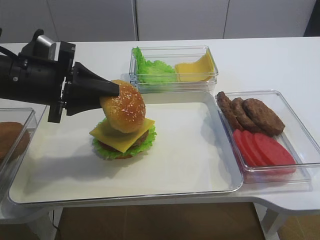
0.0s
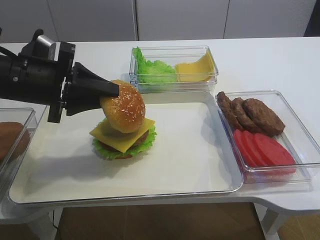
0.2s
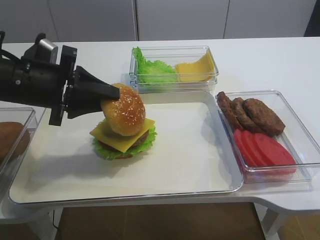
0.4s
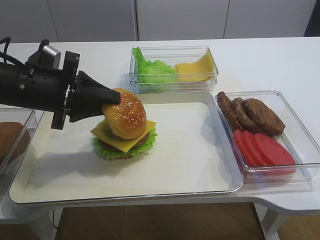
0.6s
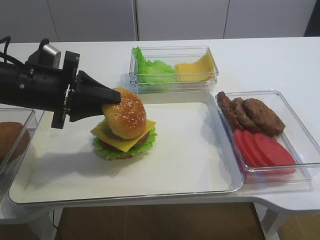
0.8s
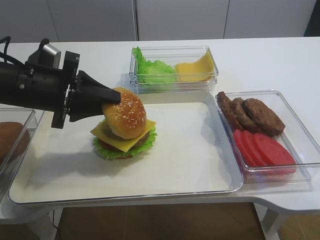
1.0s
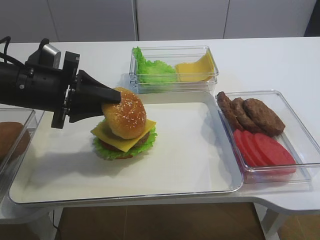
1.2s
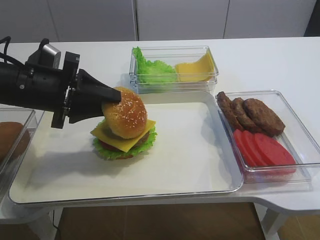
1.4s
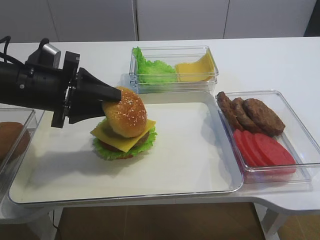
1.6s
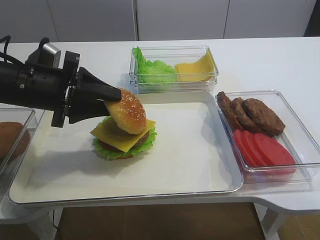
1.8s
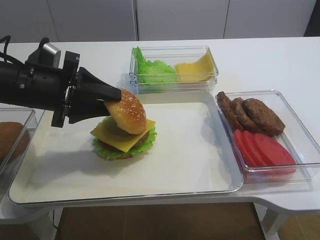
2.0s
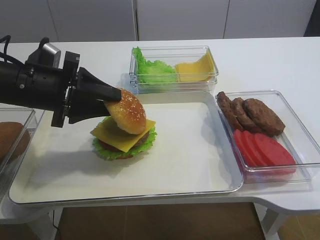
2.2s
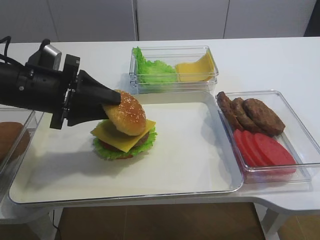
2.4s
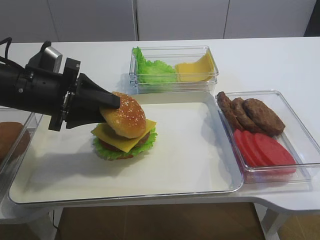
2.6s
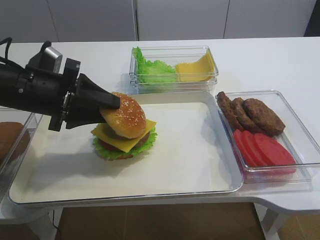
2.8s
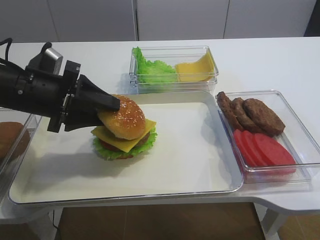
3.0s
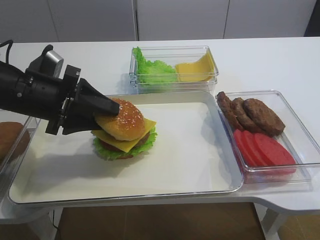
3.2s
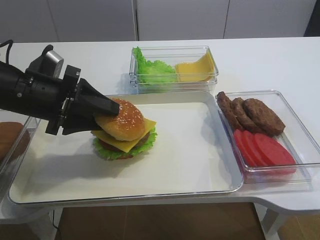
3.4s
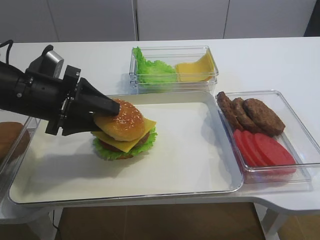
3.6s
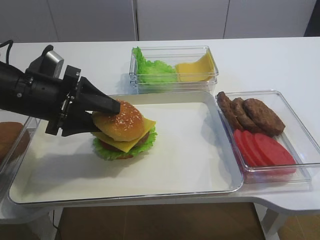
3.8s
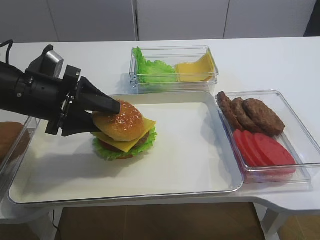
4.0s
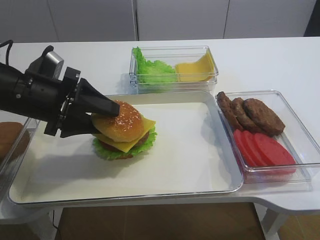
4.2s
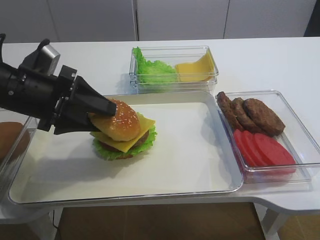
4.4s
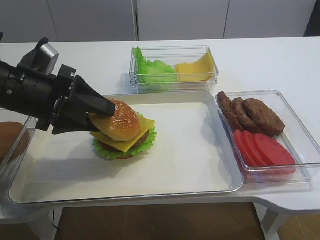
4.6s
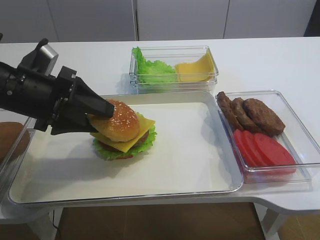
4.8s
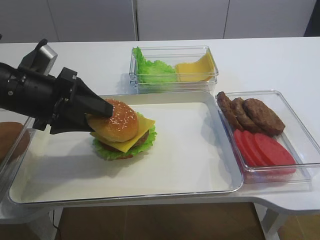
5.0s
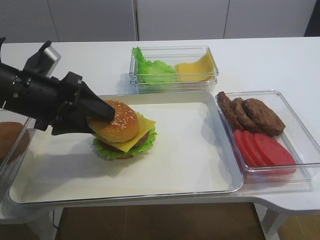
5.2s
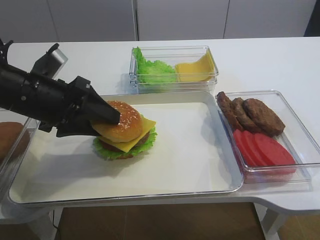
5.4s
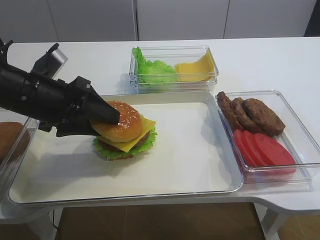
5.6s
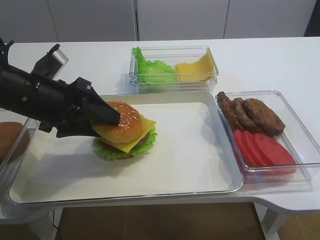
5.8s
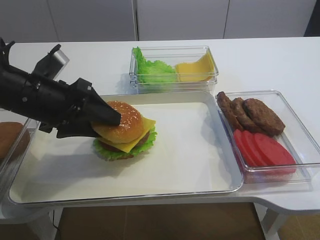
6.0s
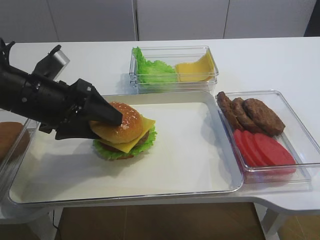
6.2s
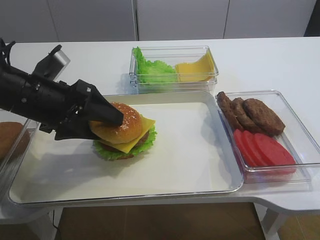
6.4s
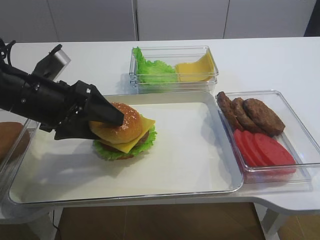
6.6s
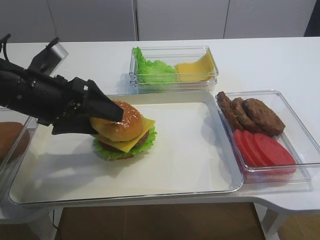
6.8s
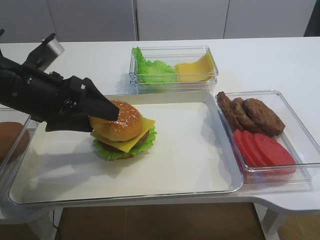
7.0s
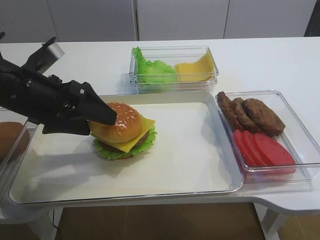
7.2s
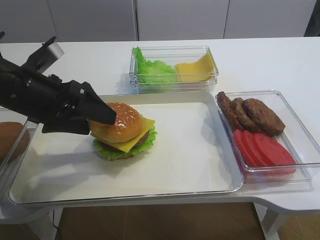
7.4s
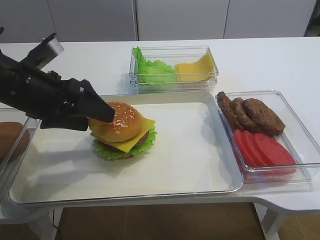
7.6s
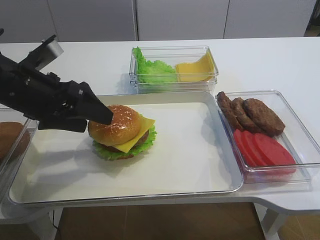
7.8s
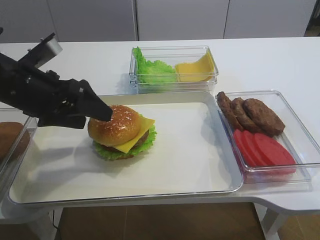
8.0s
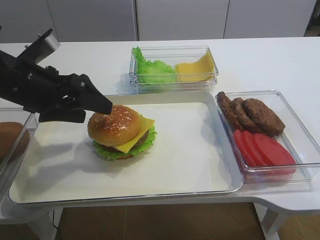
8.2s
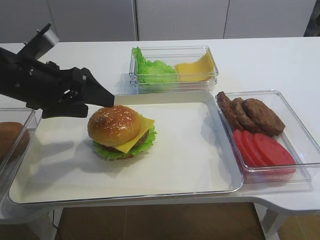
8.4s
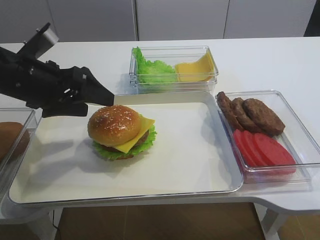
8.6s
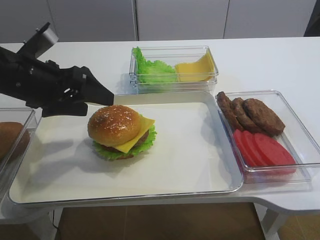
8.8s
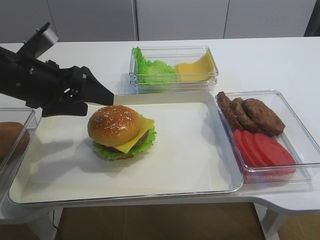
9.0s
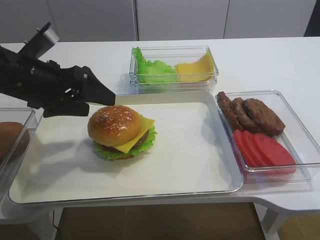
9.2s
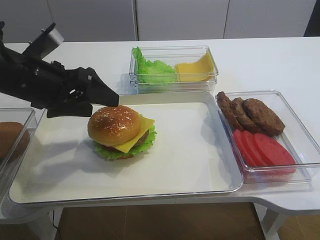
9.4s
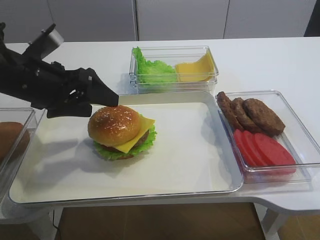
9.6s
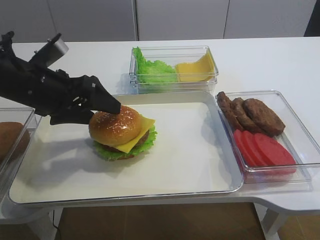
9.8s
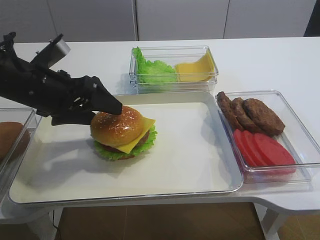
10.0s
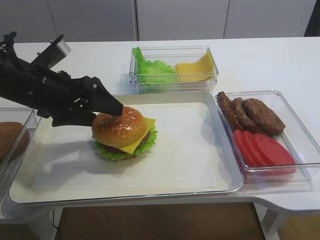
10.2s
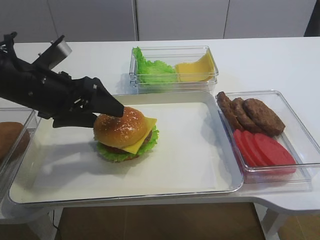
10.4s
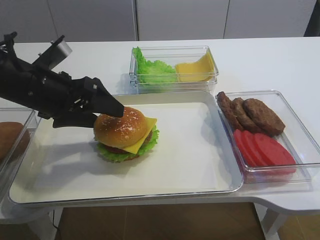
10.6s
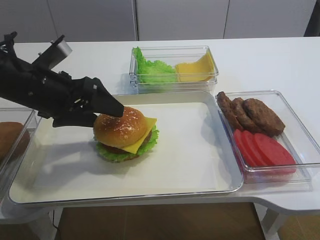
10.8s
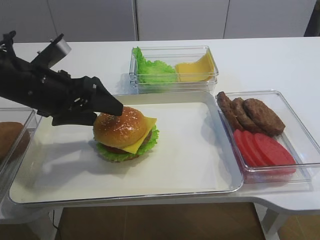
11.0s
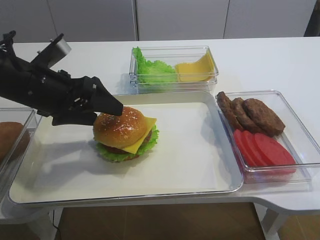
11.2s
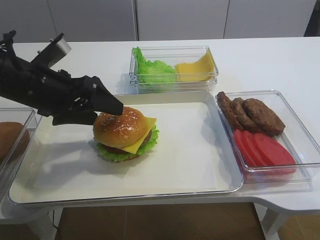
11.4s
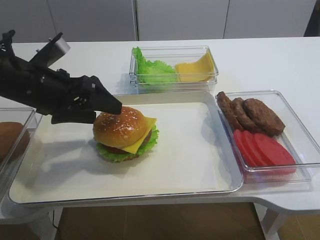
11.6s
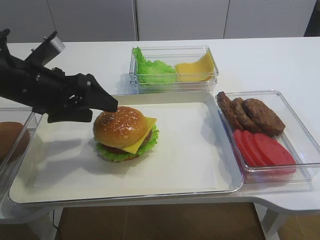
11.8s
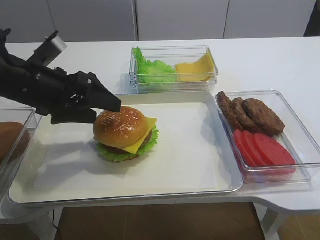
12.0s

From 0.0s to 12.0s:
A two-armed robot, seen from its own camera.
From 0.0s to 1.6s: The grippers move only a little.
From 1.6s to 3.0s: Neither gripper changes place.
From 3.0s to 6.0s: The grippers stay close to where they were, moving slightly.
From 6.0s to 7.6s: The left gripper opens its fingers.
From 7.6s to 10.4s: The grippers move only a little.
From 10.4s to 12.0s: Neither gripper changes place.

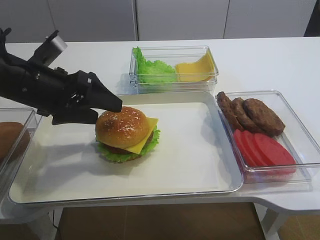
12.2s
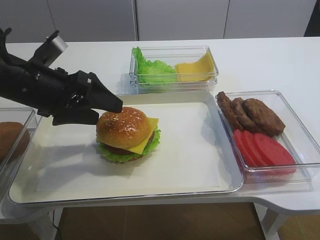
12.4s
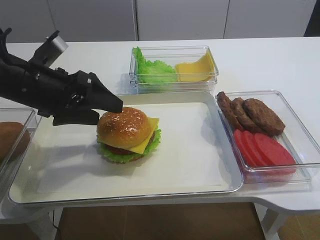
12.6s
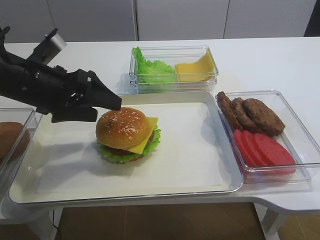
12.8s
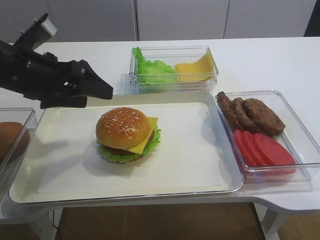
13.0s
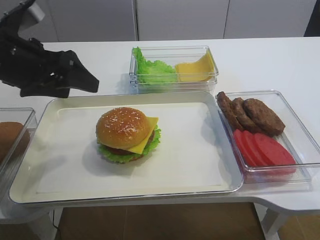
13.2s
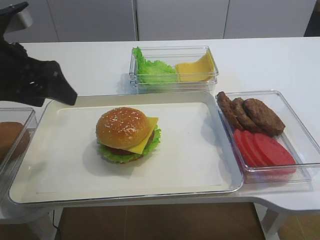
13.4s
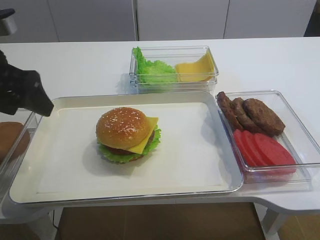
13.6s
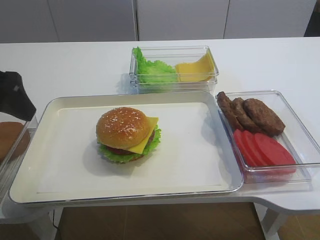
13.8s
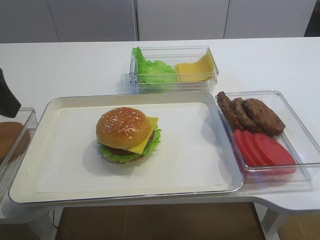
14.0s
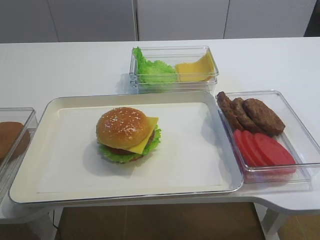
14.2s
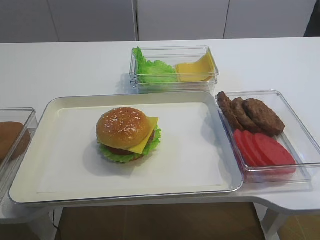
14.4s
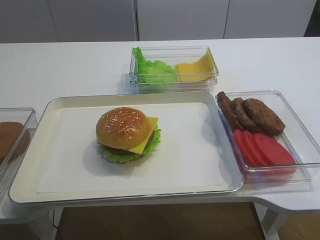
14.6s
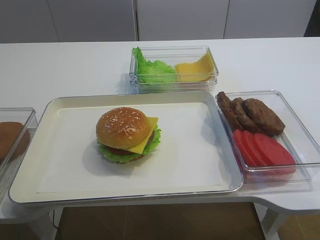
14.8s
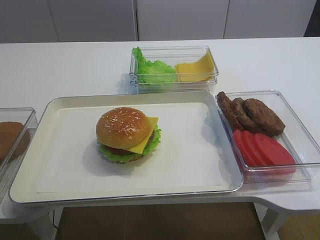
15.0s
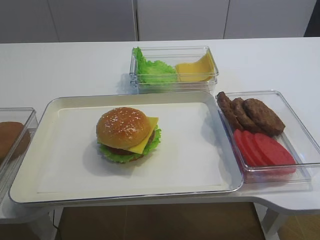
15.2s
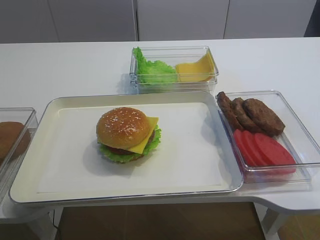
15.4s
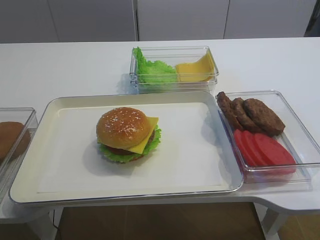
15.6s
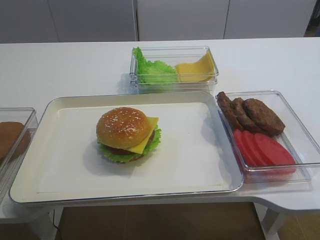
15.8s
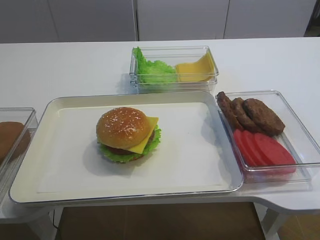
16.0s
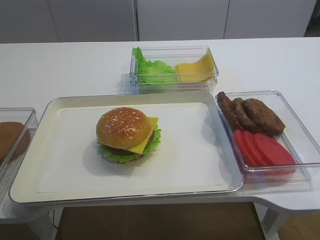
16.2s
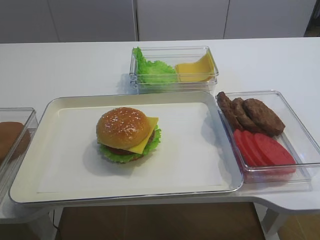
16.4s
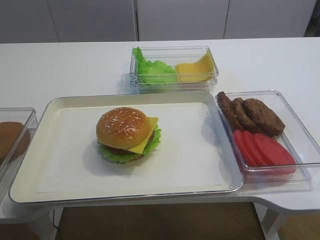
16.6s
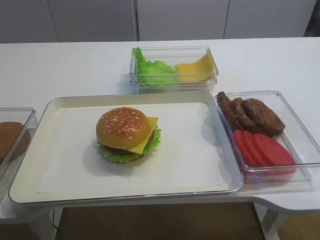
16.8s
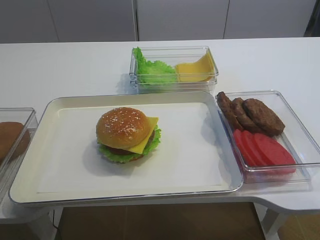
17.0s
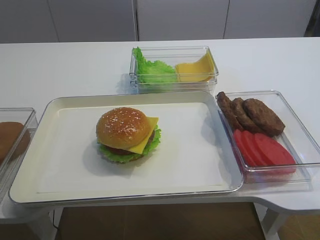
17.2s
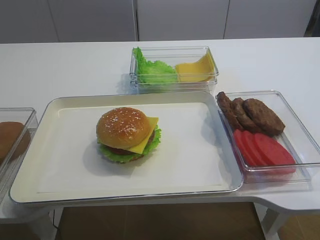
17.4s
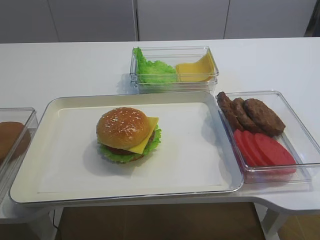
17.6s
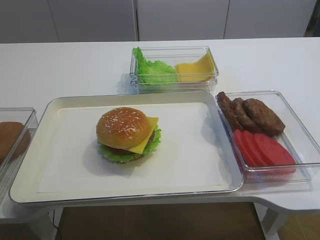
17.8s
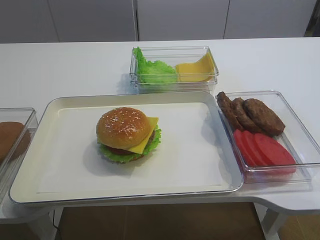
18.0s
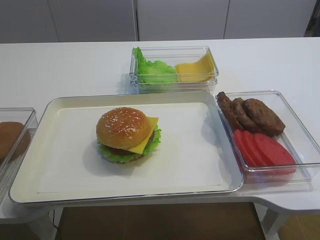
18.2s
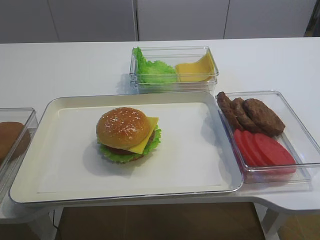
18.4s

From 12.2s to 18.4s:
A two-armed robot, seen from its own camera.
From 12.2s to 13.8s: The left gripper shifts about 10 cm upward, to the left and backward.
From 13.8s to 15.4s: The left gripper goes approximately 25 cm backward.

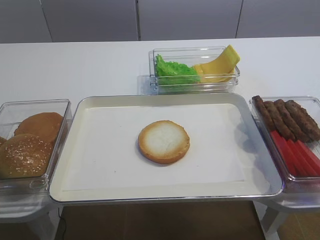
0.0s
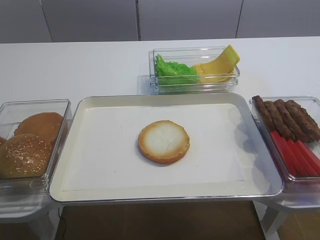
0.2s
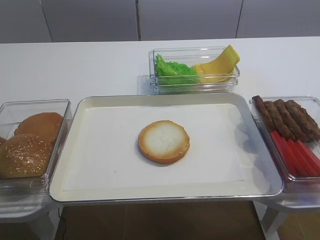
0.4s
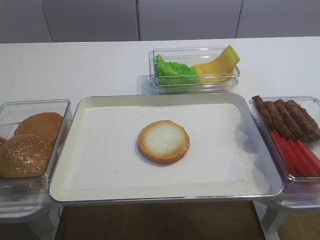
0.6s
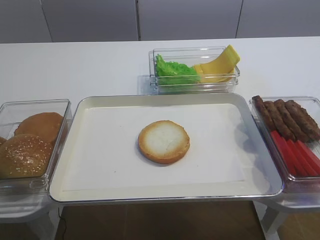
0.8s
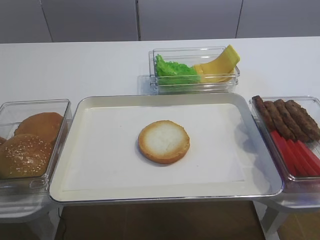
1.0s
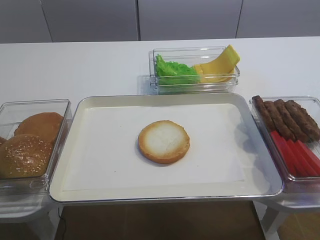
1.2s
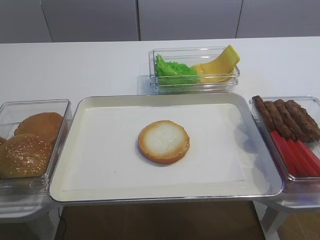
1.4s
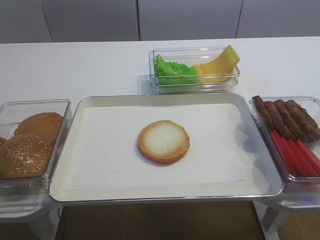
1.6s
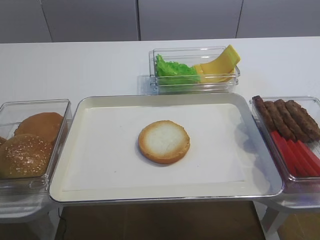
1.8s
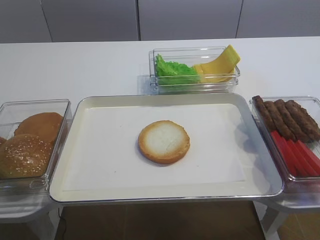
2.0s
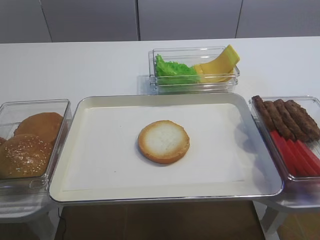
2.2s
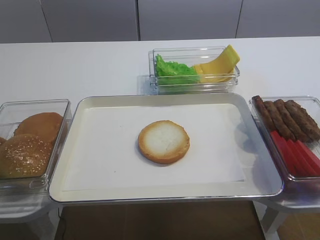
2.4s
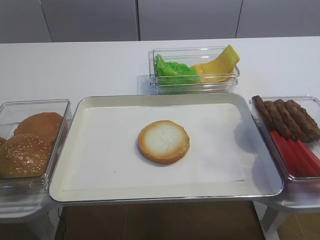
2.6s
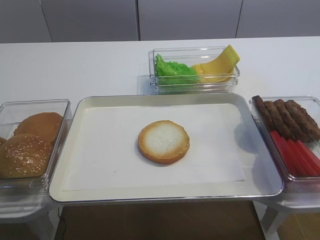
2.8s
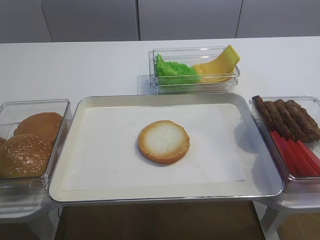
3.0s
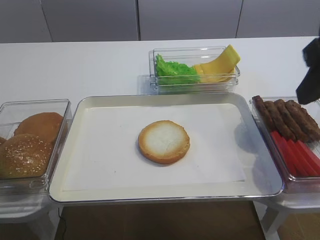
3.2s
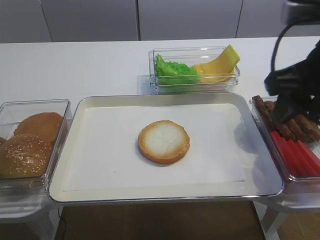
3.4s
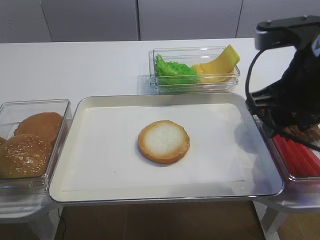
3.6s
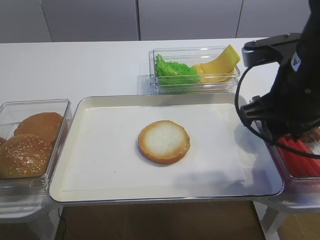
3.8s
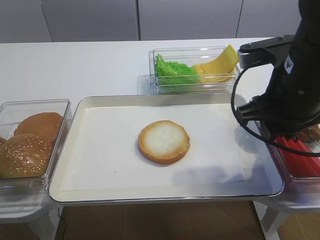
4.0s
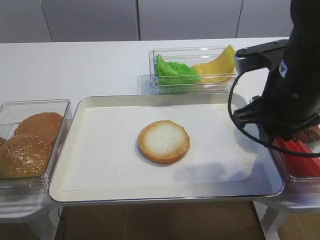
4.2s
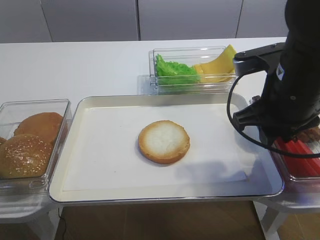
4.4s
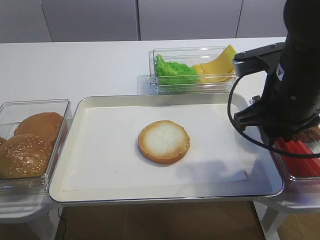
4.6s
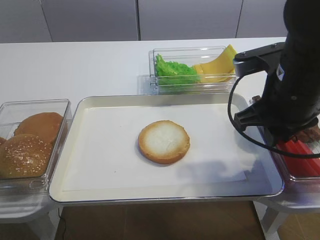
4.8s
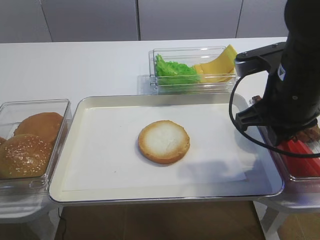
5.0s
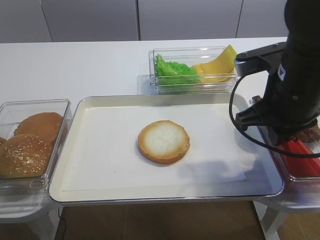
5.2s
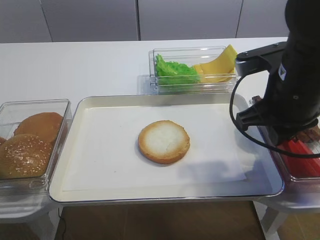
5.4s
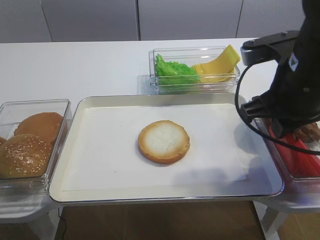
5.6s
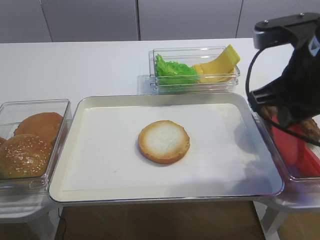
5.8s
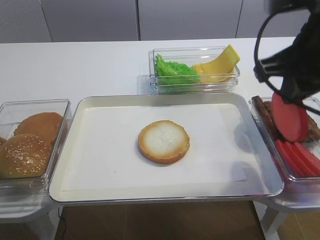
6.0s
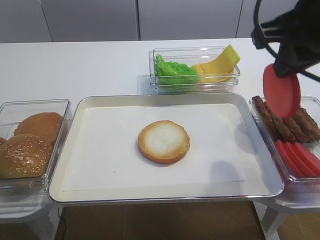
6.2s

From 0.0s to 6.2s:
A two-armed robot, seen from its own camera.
Step, from 0.0s to 5.8s: Pick up the tomato slice with the right gripper.
From 1.6s to 3.2s: The right gripper travels forward by approximately 20 cm.
From 3.2s to 4.6s: The right gripper travels downward, forward and to the left by approximately 10 cm, and closes.
From 4.6s to 6.2s: The right gripper moves upward, roughly 10 cm, and closes its fingers.
